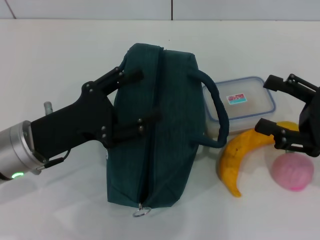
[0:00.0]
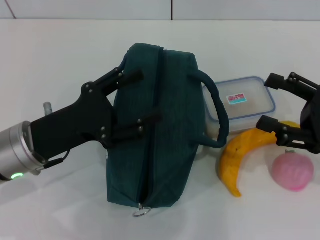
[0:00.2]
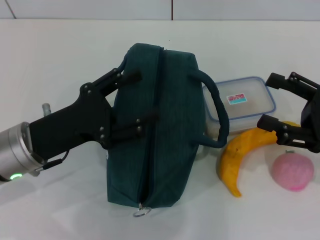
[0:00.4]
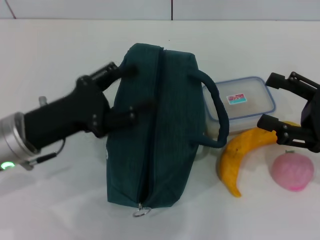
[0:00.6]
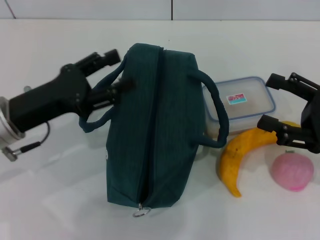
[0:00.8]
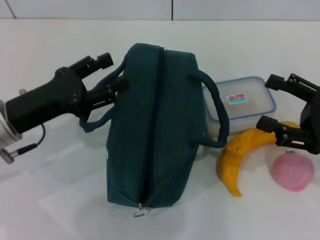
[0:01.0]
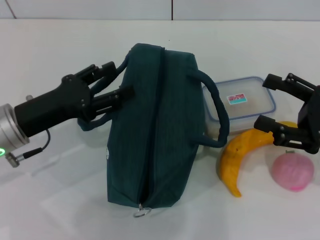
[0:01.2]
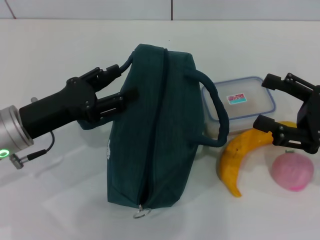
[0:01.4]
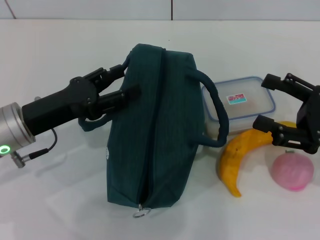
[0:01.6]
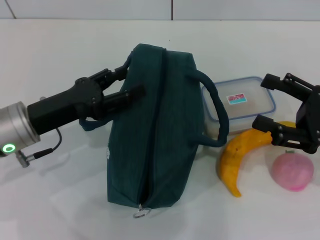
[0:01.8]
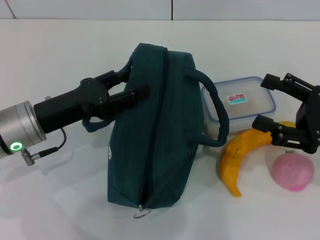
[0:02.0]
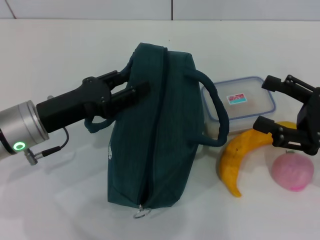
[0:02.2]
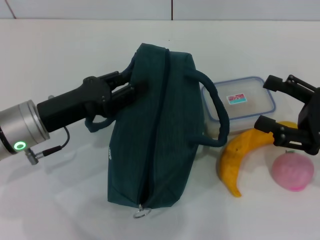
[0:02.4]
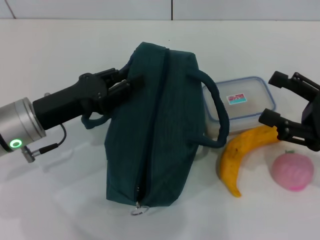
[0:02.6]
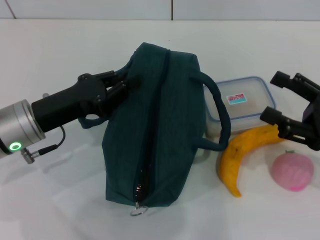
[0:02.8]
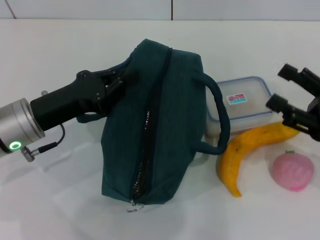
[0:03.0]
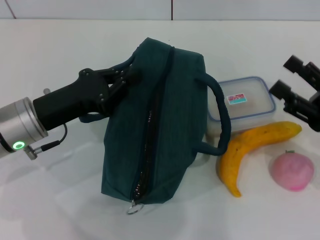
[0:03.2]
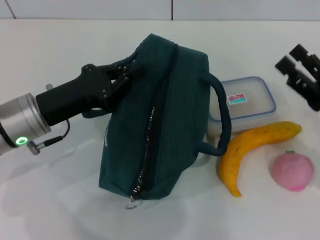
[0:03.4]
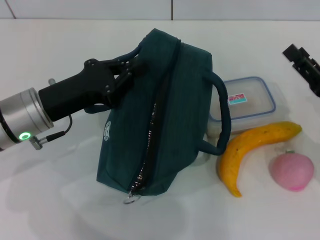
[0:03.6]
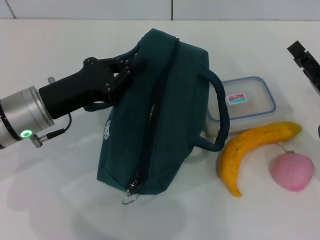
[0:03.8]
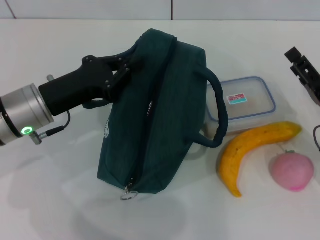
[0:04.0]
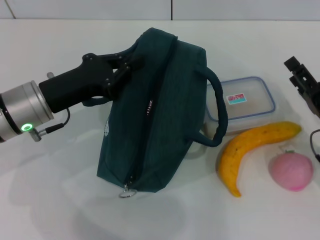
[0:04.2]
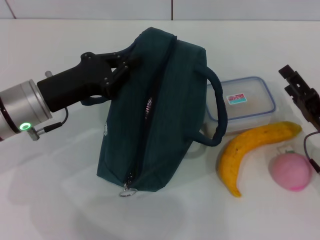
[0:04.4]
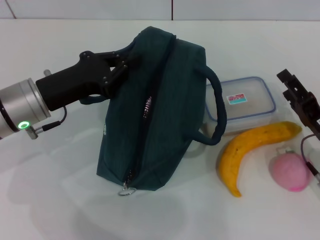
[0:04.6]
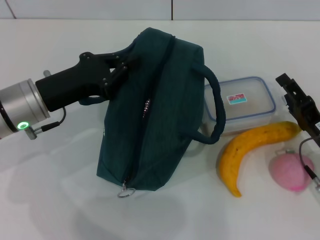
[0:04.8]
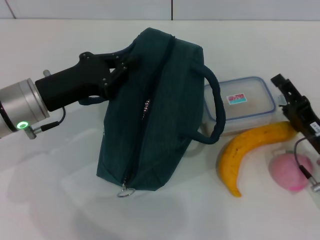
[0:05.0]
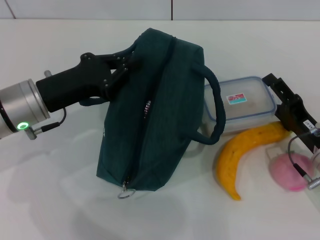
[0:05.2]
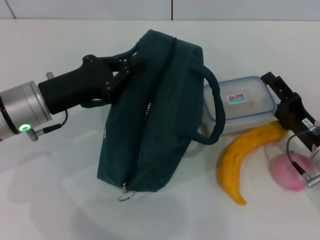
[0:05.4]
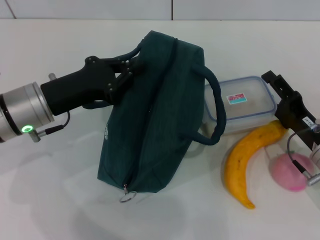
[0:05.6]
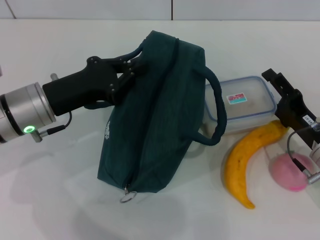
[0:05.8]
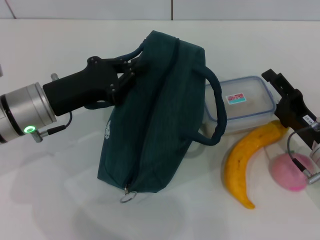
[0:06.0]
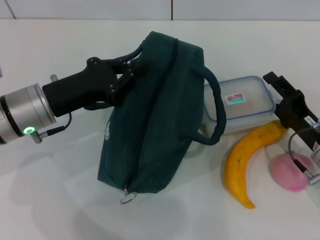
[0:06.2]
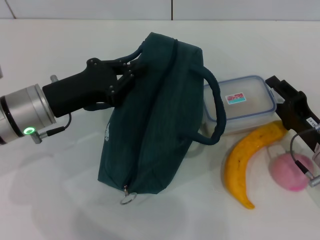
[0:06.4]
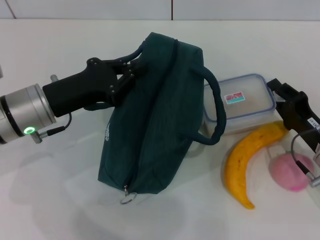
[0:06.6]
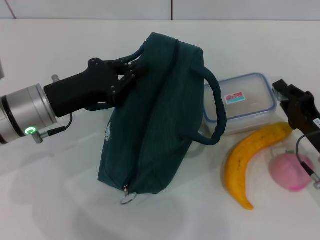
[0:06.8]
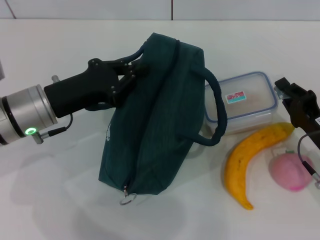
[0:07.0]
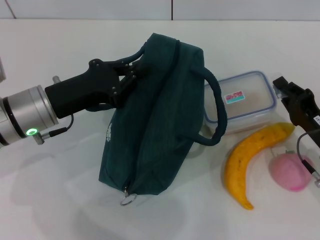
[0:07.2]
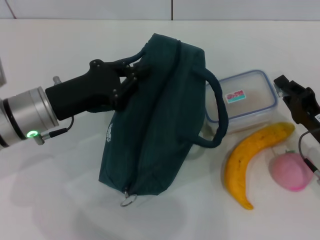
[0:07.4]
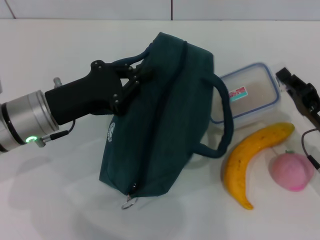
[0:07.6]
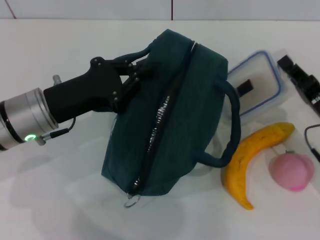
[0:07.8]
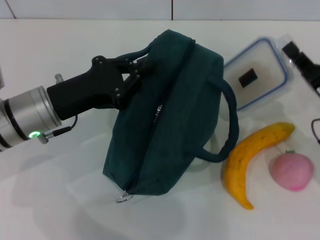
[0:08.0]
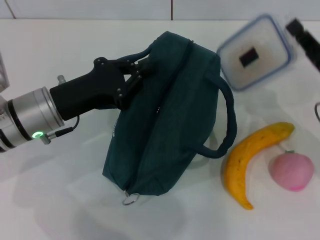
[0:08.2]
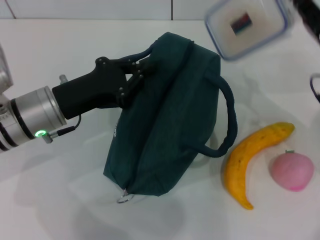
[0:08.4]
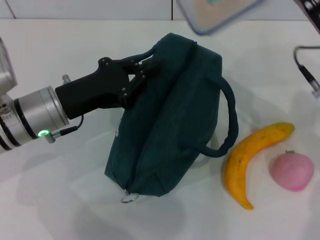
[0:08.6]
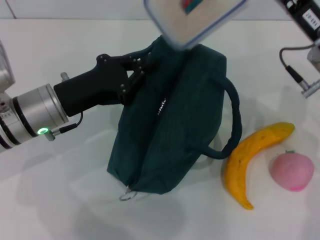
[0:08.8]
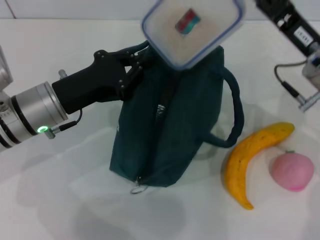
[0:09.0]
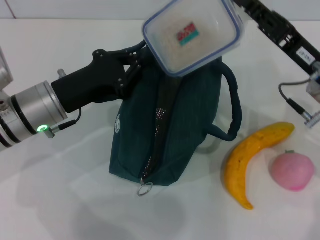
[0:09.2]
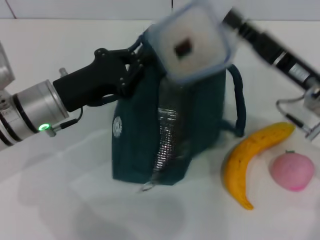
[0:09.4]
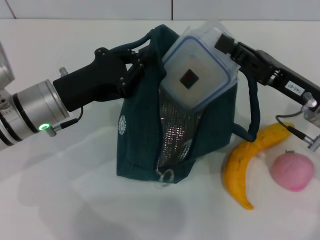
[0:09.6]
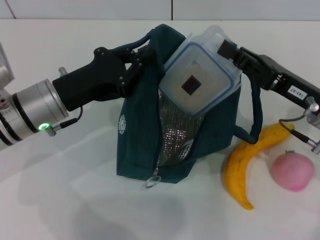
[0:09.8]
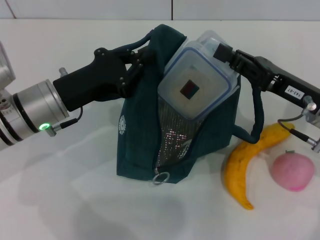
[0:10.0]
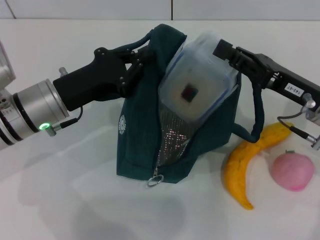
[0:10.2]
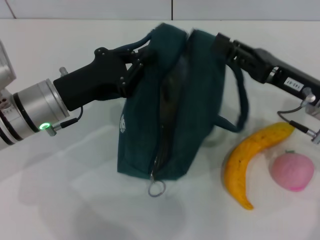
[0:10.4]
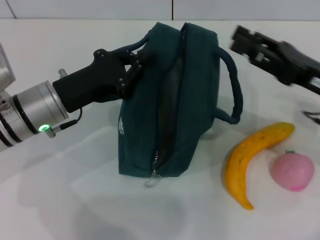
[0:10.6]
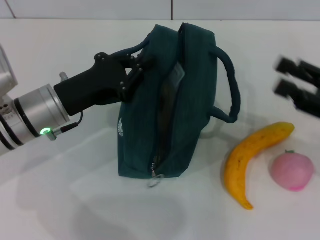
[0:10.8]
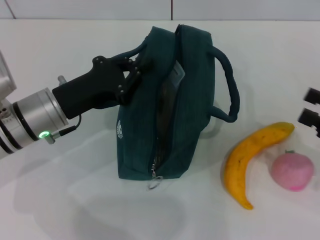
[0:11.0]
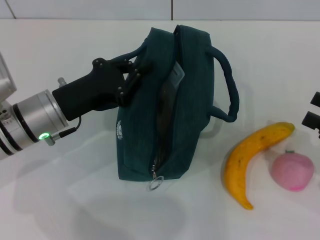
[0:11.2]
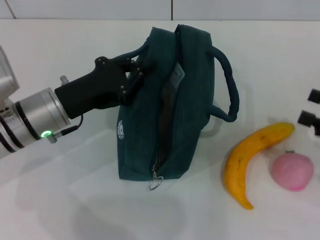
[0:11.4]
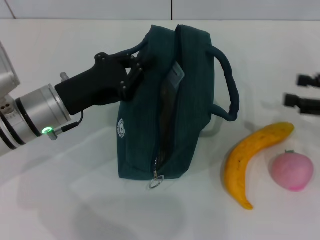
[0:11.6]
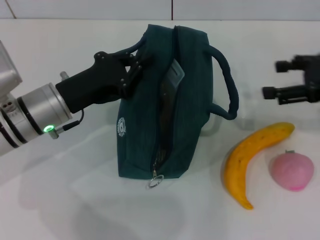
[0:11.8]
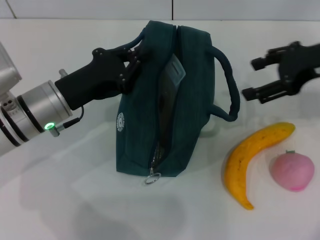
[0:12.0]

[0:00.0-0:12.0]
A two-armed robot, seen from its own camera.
Step, 0:00.0 to 0:03.0: Hold the lunch bag with your left hand.
Step, 0:03.4 to 0:07.0: Pick up the lunch box with your right hand.
Step, 0:07.2 to 0:10.4: Place the lunch box into the lunch bag with your right hand.
0:01.6 to 0:03.0: The left gripper closes.
0:03.0 to 0:04.4: The right gripper heads downward, covering some 5 cm.
0:04.4 to 0:06.0: The grippers make only small movements.
0:06.0 to 0:07.6: The right gripper closes up.
0:07.6 to 0:09.0: The right gripper shifts some 15 cm upward, forward and to the left.
0:10.4 to 0:12.0: The right gripper shifts some 10 cm upward and forward, moves about 15 cm to the right and comes back, and opens its fingers.

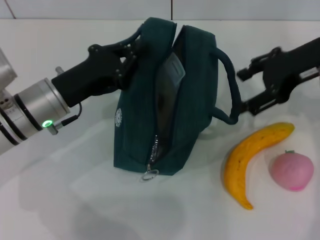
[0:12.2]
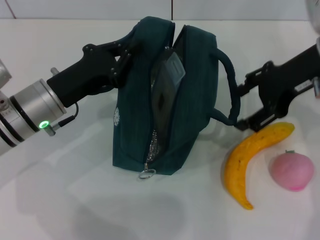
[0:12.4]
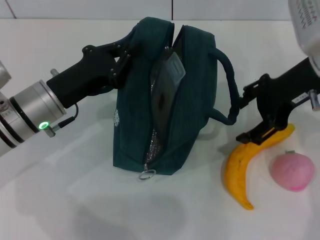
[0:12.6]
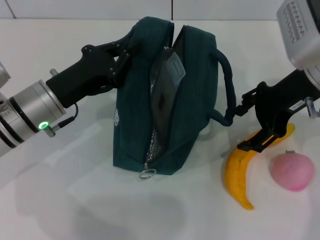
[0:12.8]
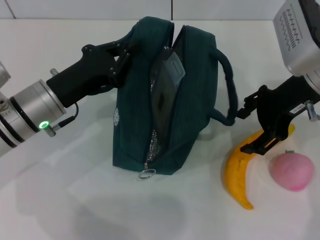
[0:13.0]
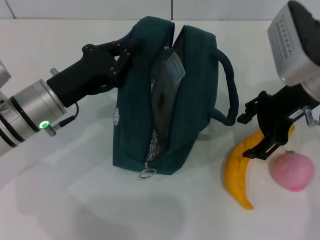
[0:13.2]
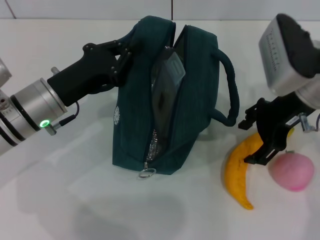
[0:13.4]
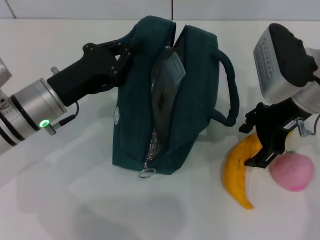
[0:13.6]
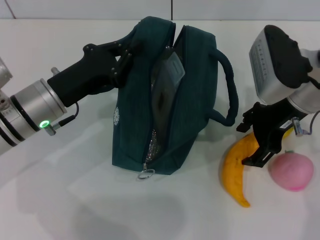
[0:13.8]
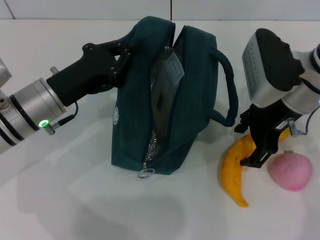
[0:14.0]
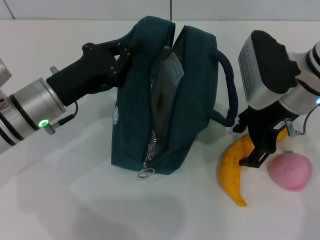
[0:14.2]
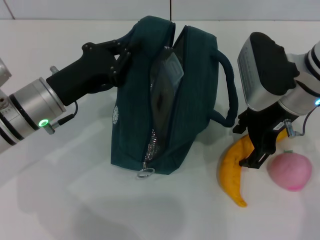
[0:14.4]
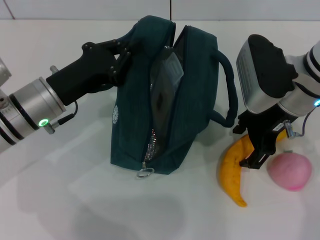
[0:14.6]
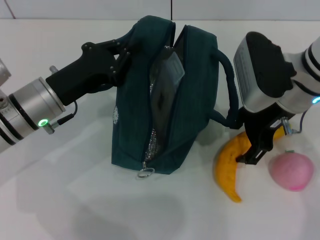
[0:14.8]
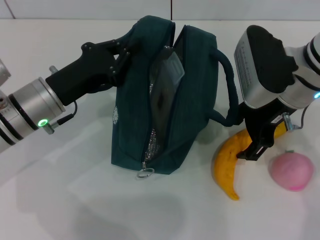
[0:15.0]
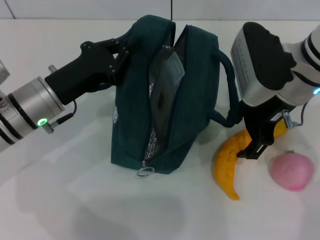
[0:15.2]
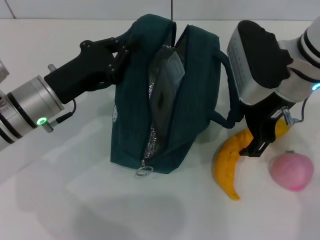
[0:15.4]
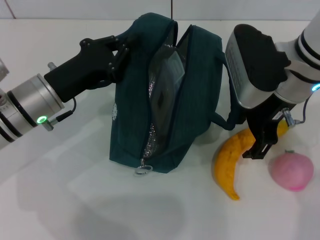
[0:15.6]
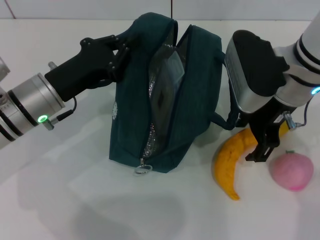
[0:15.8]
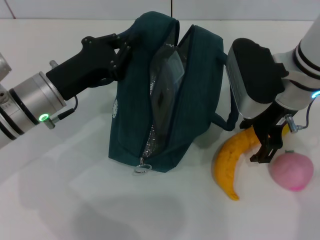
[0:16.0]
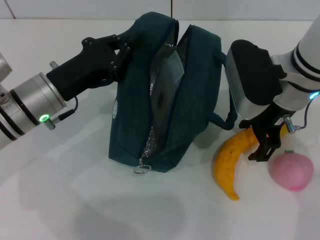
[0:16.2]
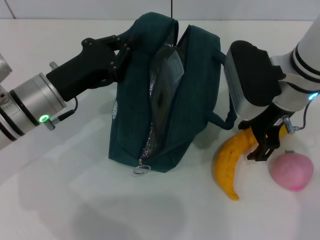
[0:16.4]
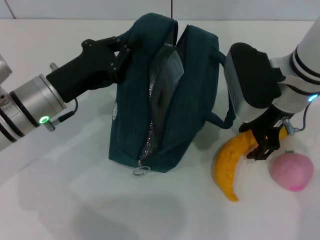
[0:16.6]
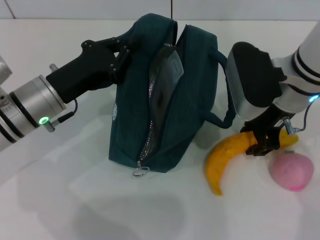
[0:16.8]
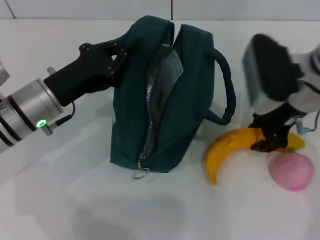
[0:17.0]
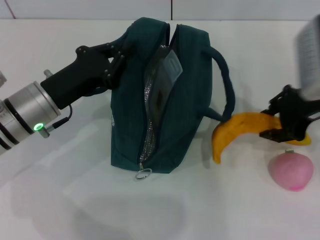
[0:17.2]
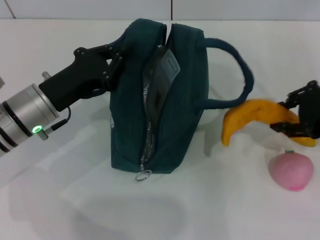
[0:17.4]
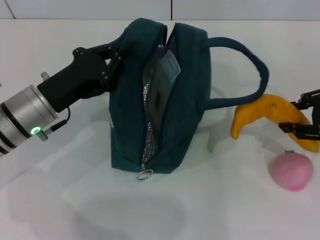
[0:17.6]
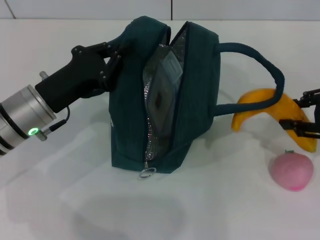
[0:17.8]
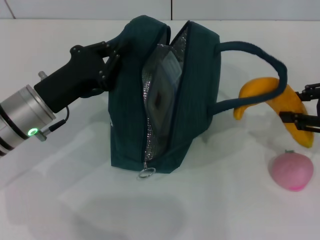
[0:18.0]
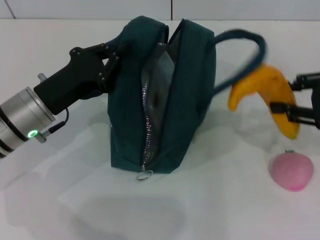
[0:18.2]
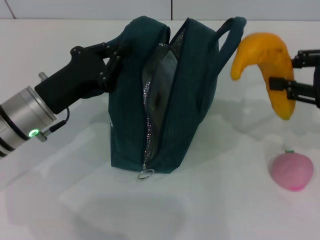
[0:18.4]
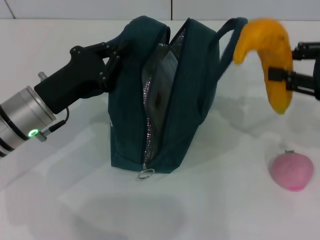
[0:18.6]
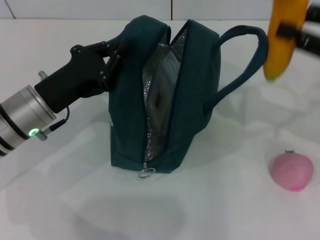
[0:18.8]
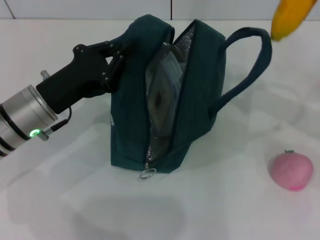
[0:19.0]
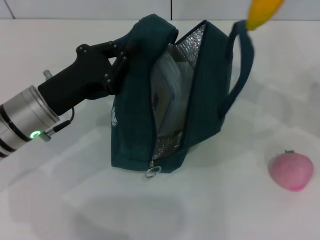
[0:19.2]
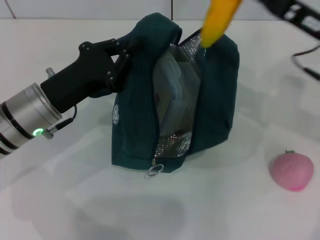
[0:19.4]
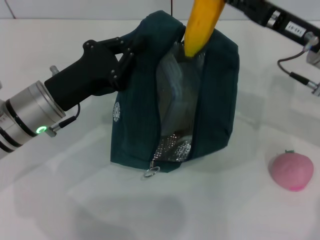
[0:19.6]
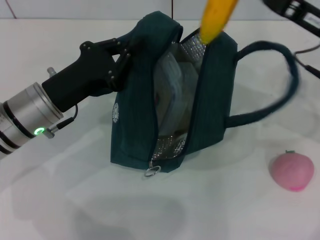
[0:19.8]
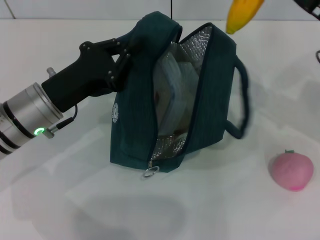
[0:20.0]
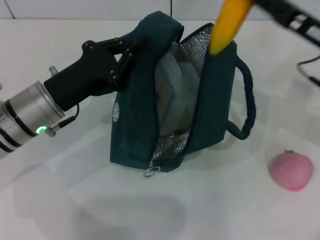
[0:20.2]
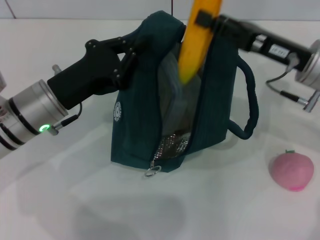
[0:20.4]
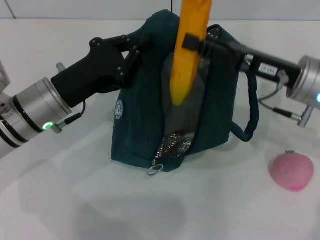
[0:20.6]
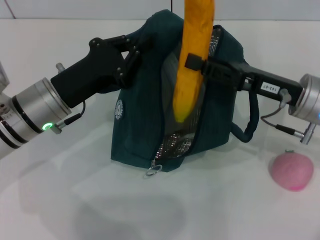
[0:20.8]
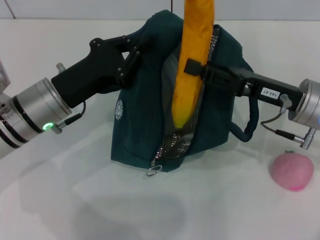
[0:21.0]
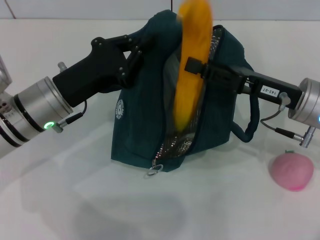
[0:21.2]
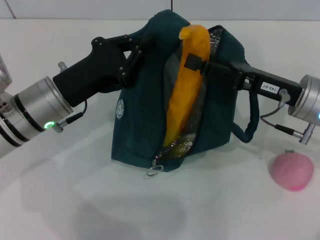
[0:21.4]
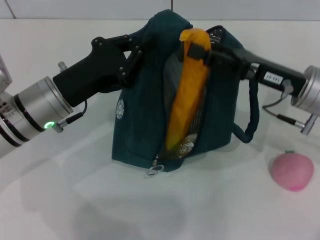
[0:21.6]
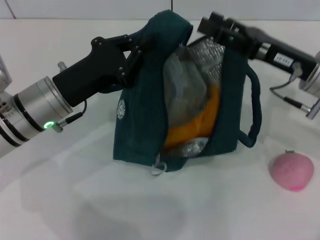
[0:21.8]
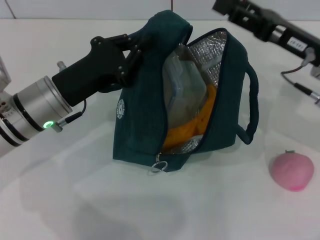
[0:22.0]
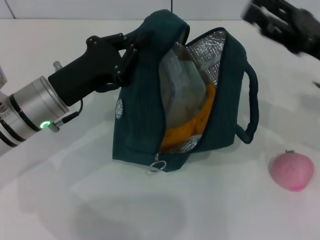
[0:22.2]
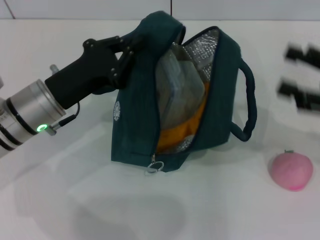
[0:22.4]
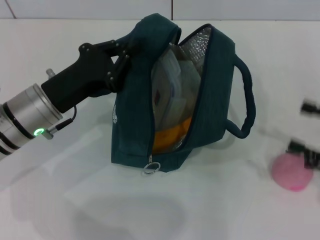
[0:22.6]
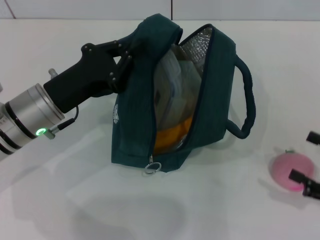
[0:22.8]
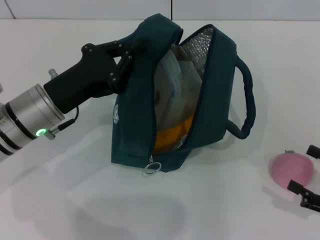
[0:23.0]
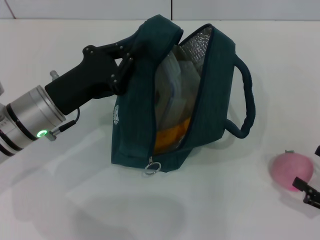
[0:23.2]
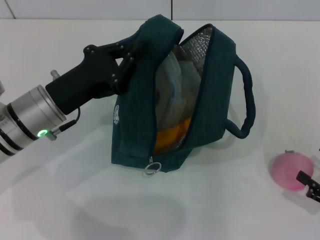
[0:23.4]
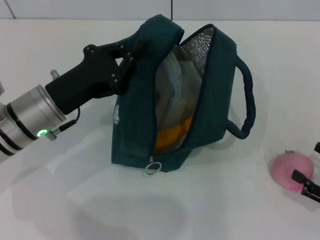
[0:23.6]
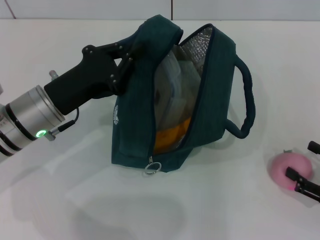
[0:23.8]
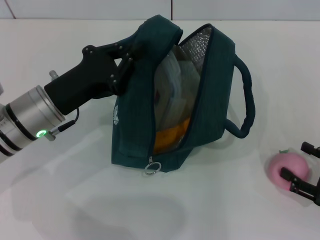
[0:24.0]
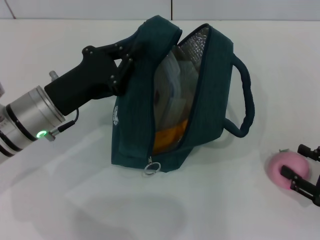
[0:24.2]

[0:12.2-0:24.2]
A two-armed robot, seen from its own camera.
Step, 0:12.2 to 0:16.6: Take the banana with your right hand.
Step, 0:16.8 to 0:22.0: Put the banana into the lunch bag with your right hand.
0:12.2 to 0:13.8: The right gripper is displaced downward by roughly 5 cm.
0:13.8 to 0:16.6: The grippers stay close to where they were, moving slightly.
0:16.6 to 0:18.2: The right gripper travels to the right and backward by about 20 cm, and closes up.
0:18.2 to 0:19.8: The right gripper goes some 10 cm to the left and forward.
0:19.8 to 0:21.2: The right gripper goes about 5 cm downward.
0:21.2 to 0:22.6: The right gripper moves to the right and backward, some 15 cm, and opens its fingers.
0:22.6 to 0:24.2: The right gripper heads downward, covering about 10 cm.
